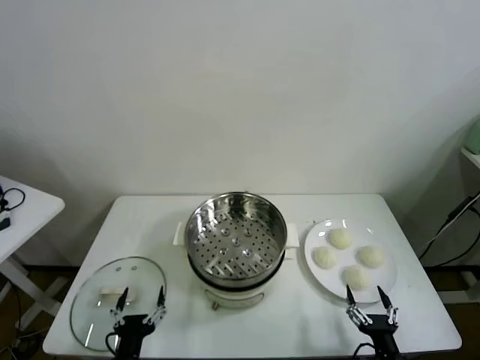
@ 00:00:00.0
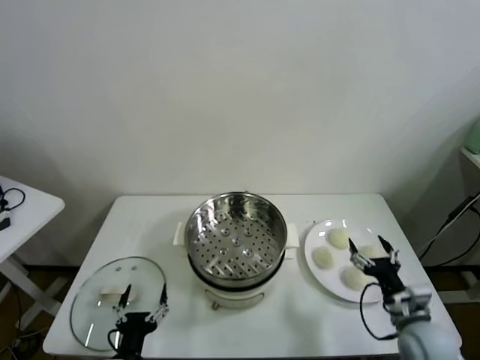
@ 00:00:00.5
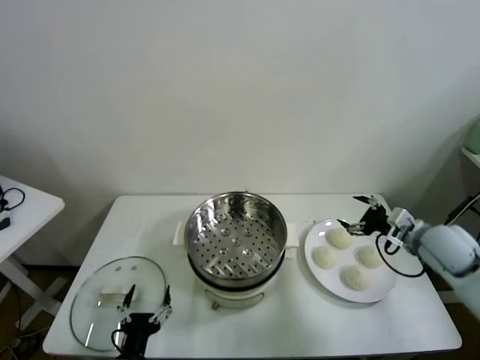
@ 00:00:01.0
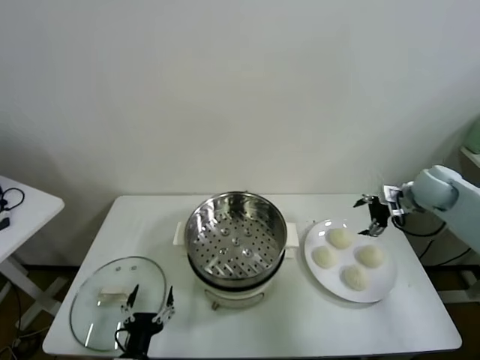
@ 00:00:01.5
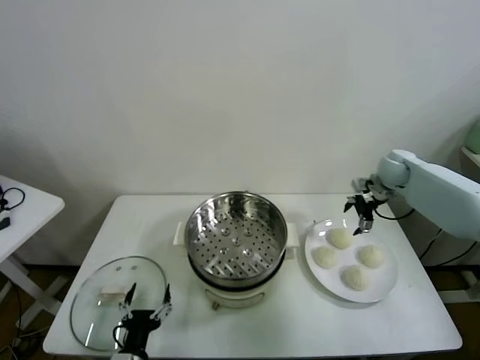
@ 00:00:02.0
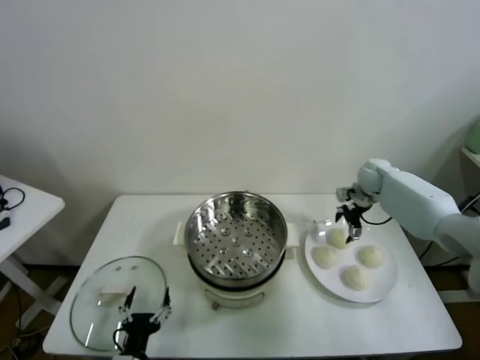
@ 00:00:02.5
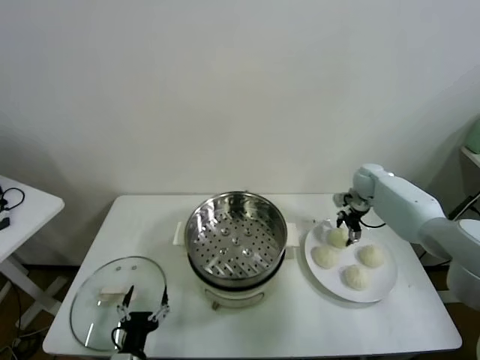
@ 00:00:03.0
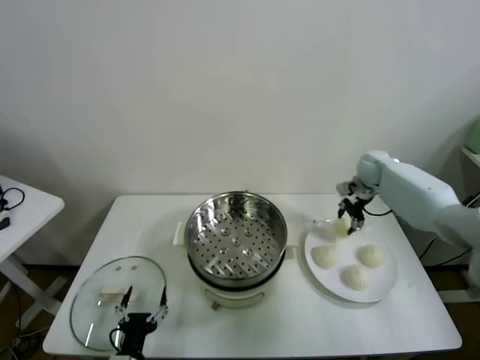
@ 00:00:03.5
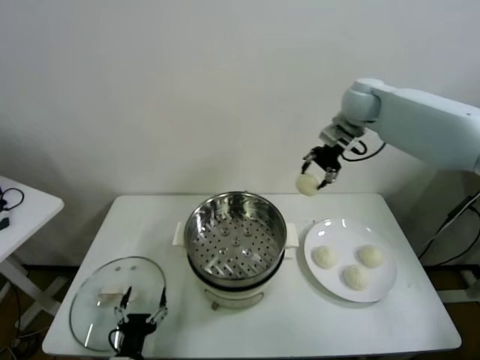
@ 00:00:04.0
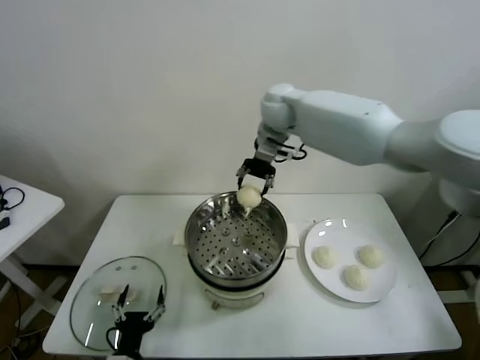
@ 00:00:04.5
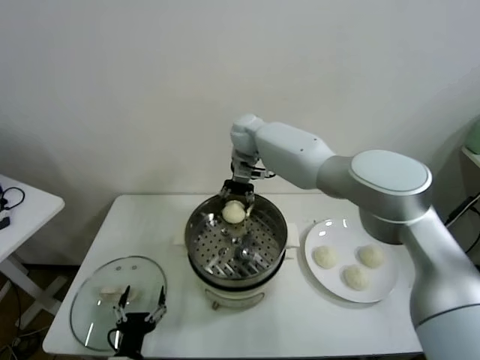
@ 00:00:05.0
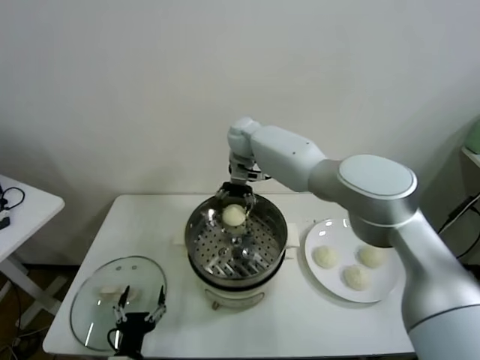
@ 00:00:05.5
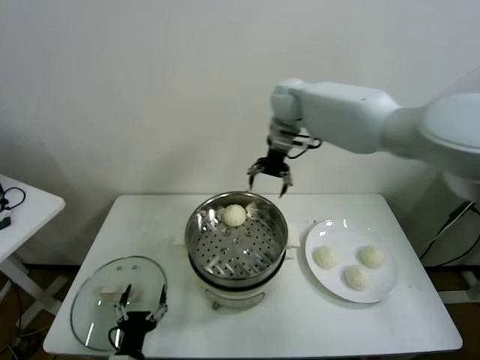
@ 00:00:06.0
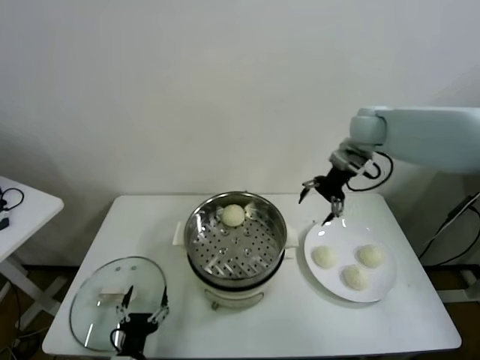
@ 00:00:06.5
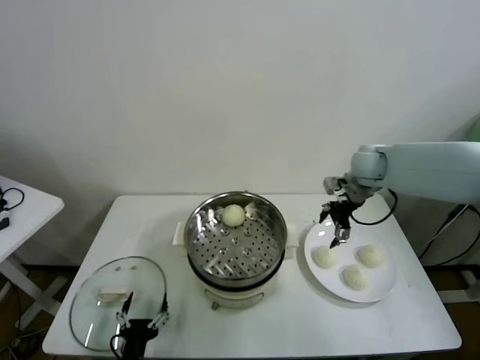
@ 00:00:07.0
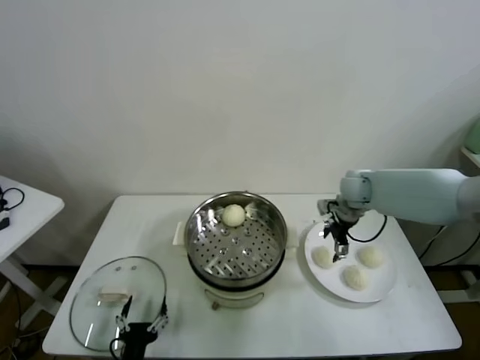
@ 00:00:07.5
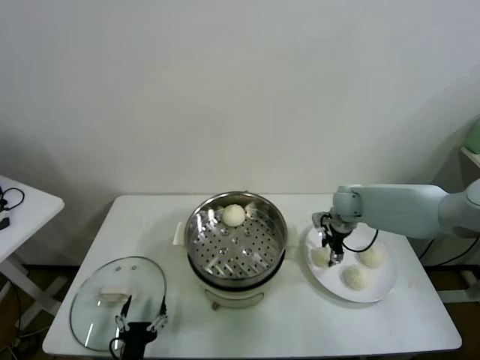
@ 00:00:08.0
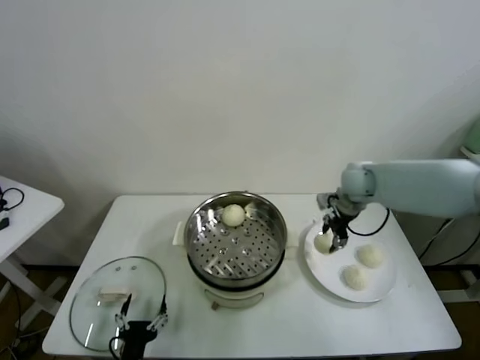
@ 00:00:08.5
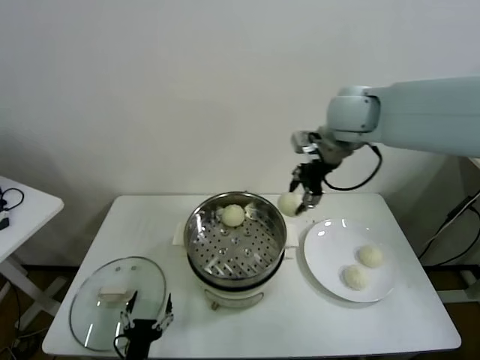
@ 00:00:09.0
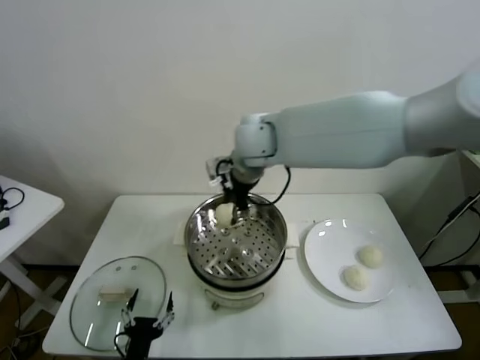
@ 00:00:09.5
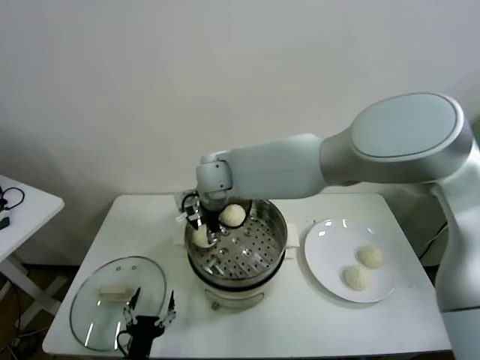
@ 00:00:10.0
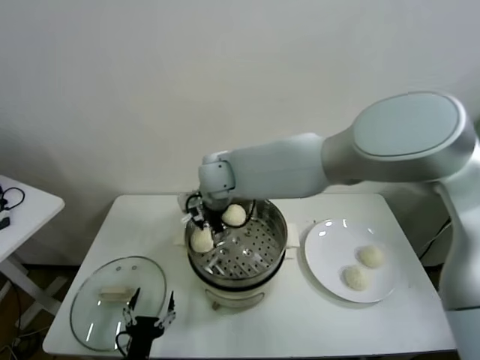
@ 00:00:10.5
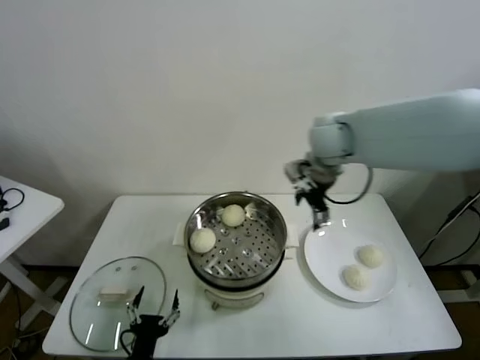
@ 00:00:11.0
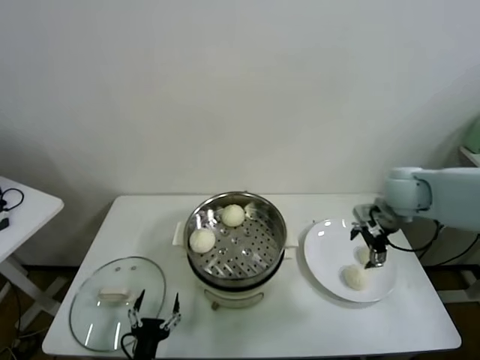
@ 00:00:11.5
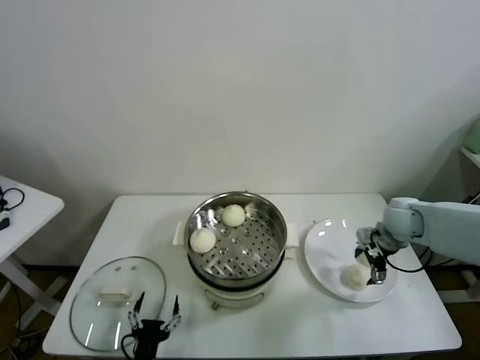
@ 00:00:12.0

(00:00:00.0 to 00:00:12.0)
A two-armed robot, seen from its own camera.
Task of the whole recording: take steamed baozi put them in steamer.
Step, 00:00:00.0 - 00:00:03.0: Grasp the baozi in the plate with right gripper.
Step, 00:00:03.5 - 00:00:05.5: Place the baozi on the steamer with right gripper.
Step, 00:00:06.0 - 00:00:08.0: Grasp the baozi in the plate with right gripper.
Step, 00:00:08.5 - 00:00:10.0: Place the baozi on the steamer with right gripper.
00:00:02.0 - 00:00:04.0: The right gripper goes roughly 25 cm upward and to the left, and closes.
00:00:04.0 - 00:00:06.0: The right gripper shifts roughly 10 cm to the left, and opens up.
00:00:06.0 - 00:00:08.0: The right gripper shifts approximately 30 cm downward and to the right, and closes its fingers.
00:00:08.0 - 00:00:10.0: The right gripper moves to the left and upward, roughly 35 cm.
00:00:10.0 - 00:00:12.0: The right gripper goes approximately 40 cm to the right, and opens.

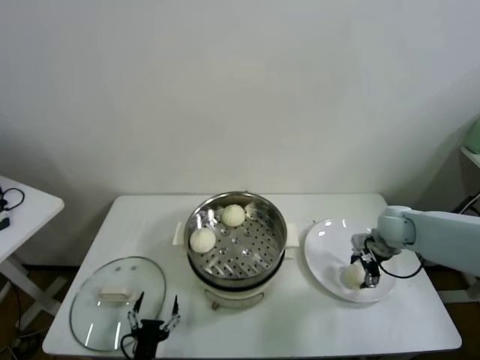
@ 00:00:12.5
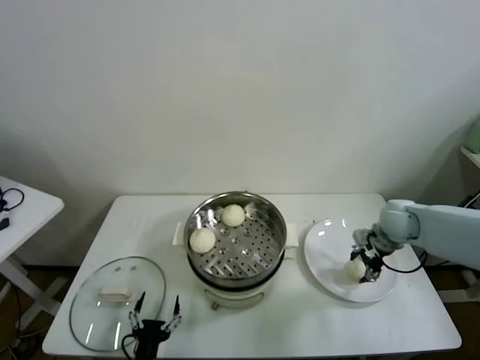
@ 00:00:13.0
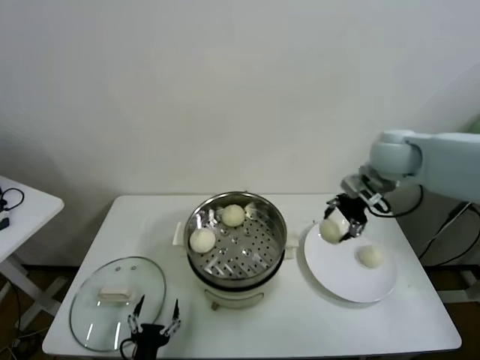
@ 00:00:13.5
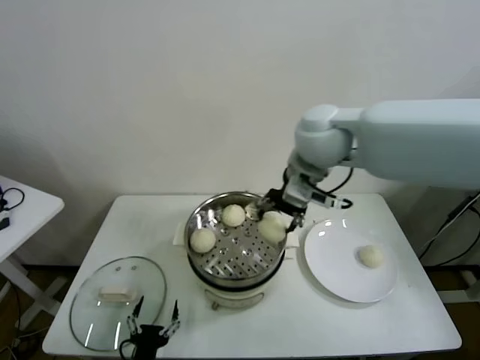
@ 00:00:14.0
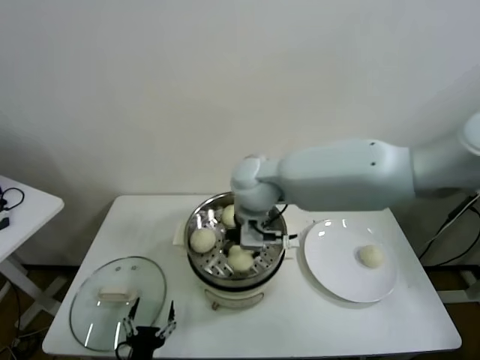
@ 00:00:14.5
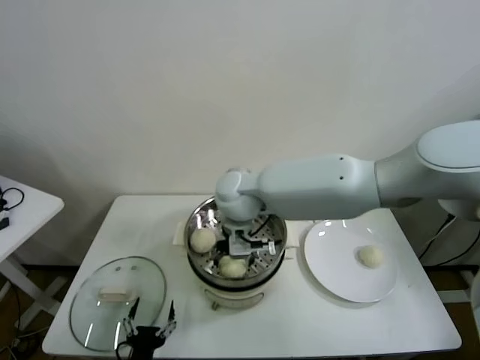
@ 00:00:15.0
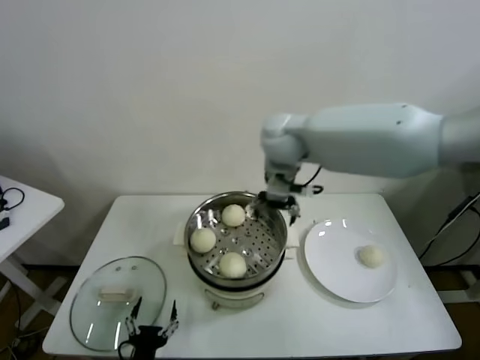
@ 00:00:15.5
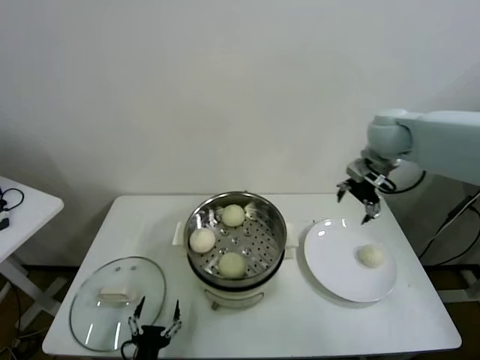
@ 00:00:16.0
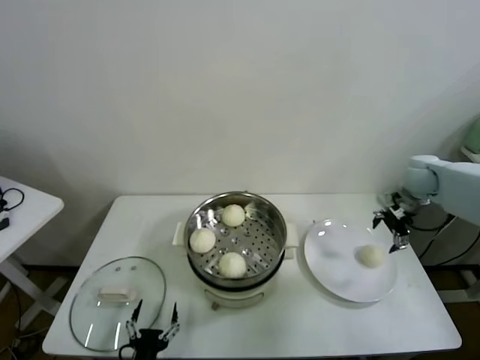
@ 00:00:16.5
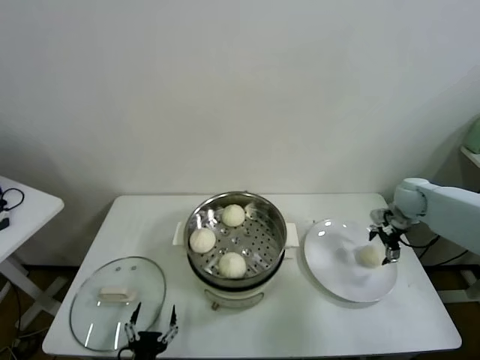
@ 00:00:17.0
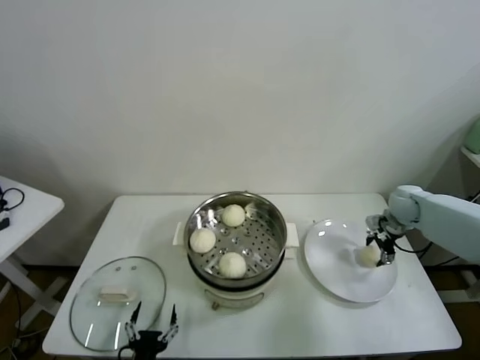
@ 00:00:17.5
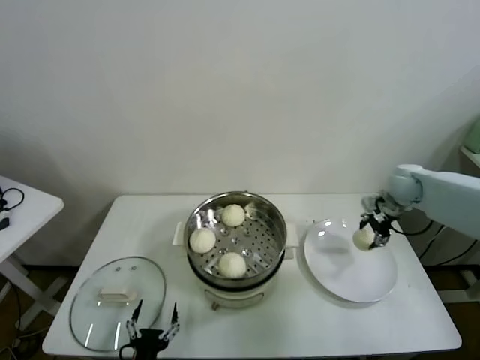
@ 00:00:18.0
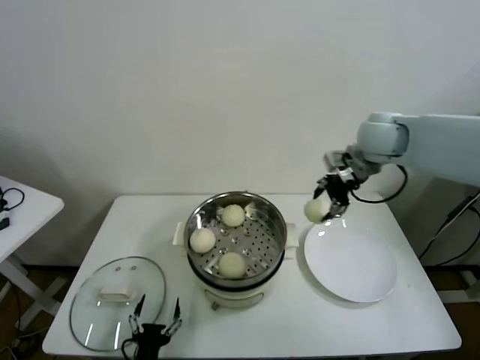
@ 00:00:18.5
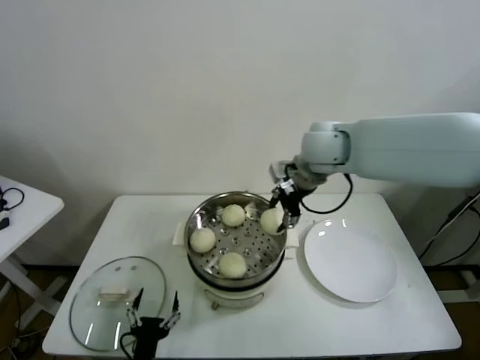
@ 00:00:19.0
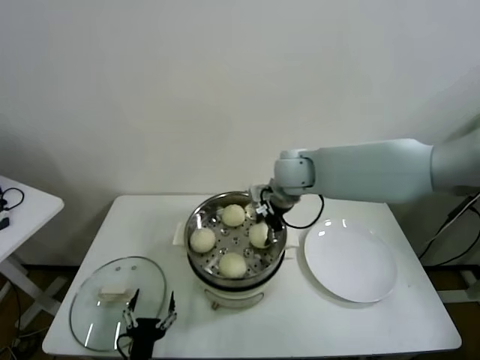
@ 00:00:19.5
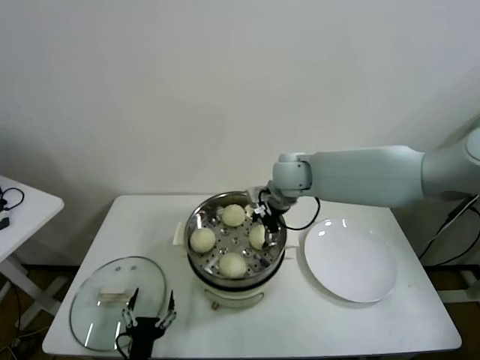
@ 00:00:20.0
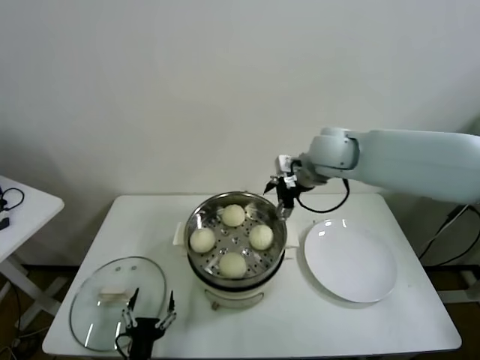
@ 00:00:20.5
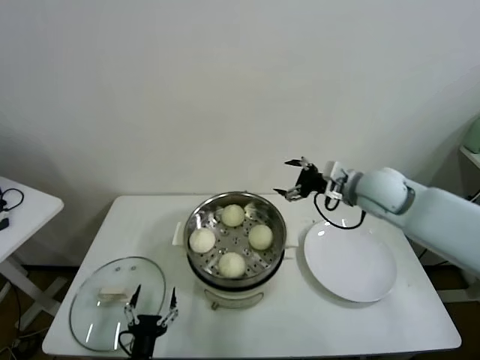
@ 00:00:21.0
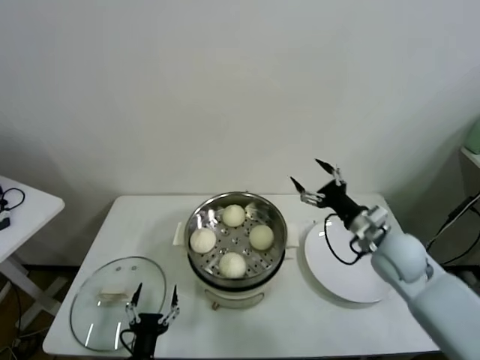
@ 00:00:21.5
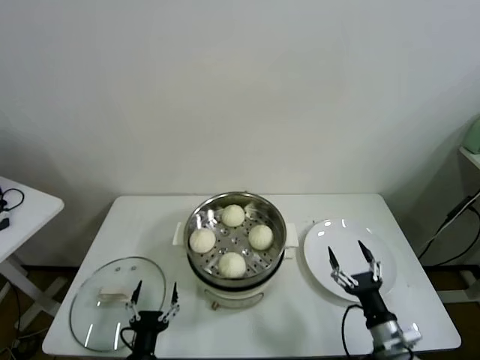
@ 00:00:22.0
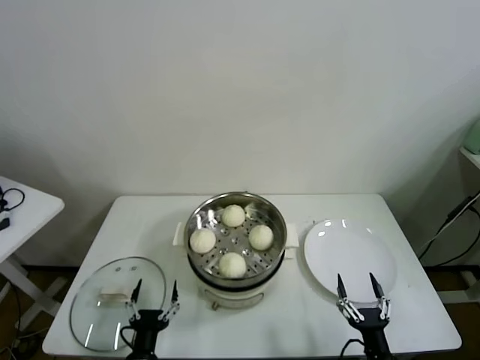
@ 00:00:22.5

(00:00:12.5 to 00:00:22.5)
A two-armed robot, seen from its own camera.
Task of the whole recording: take steamed baozi put them in steamer.
Step, 00:00:13.0 - 00:00:15.0: Place the baozi on the steamer with right gripper.
Step, 00:00:15.5 - 00:00:17.5: Grasp the baozi in the plate with right gripper.
Step, 00:00:18.0 - 00:00:20.0: Place the baozi on the steamer with right gripper.
00:00:12.5 - 00:00:14.5: The right gripper heads to the left and upward, covering some 40 cm, and closes its fingers.
00:00:14.5 - 00:00:16.5: The right gripper heads to the right, covering roughly 40 cm, and opens up.
00:00:16.5 - 00:00:18.5: The right gripper shifts some 20 cm to the left and upward, and closes up.
00:00:18.5 - 00:00:20.5: The right gripper moves to the left, approximately 10 cm, and opens.
00:00:20.5 - 00:00:22.5: The right gripper is displaced backward and downward by about 50 cm.
